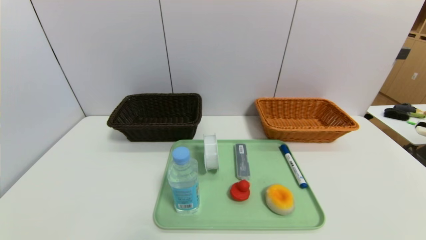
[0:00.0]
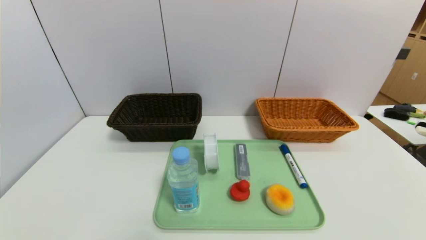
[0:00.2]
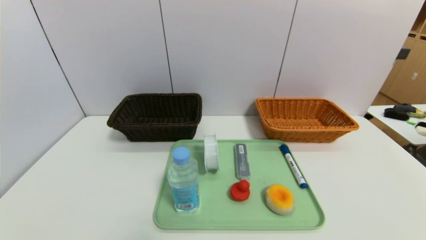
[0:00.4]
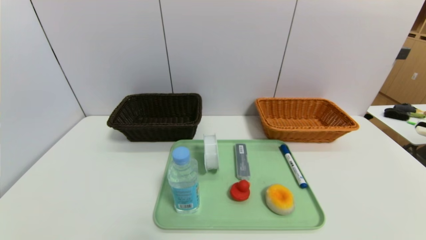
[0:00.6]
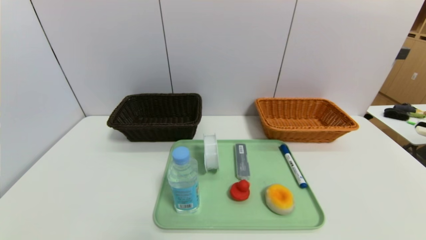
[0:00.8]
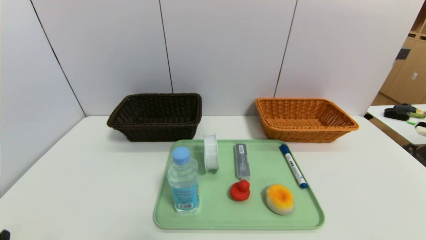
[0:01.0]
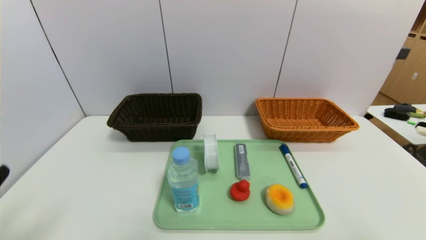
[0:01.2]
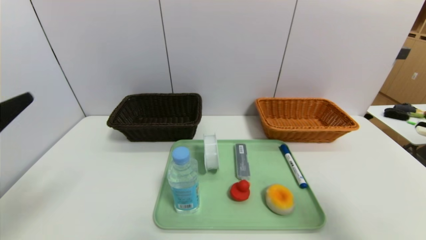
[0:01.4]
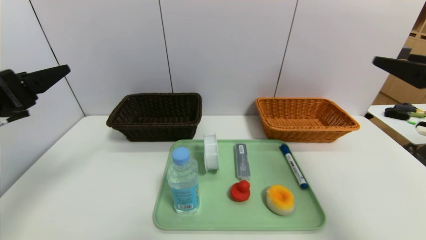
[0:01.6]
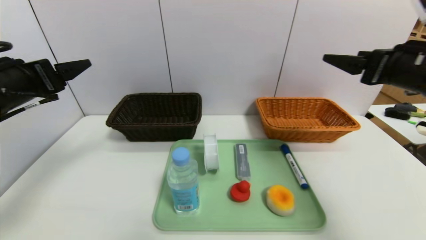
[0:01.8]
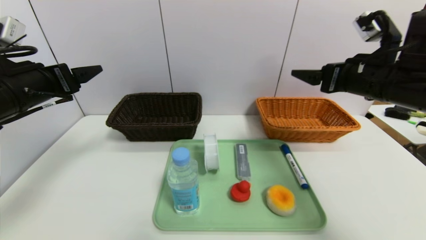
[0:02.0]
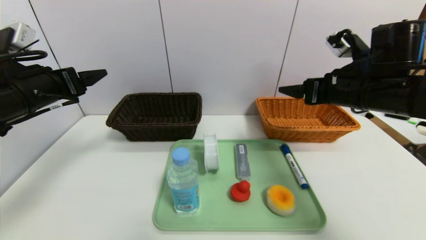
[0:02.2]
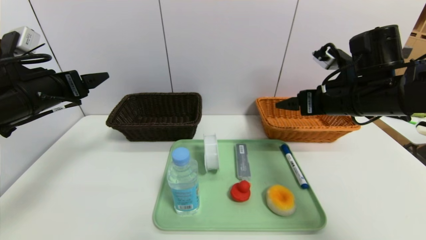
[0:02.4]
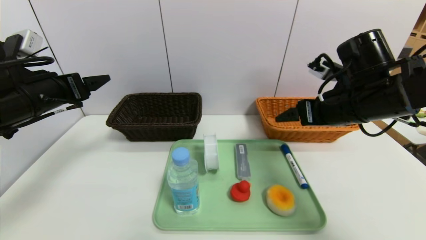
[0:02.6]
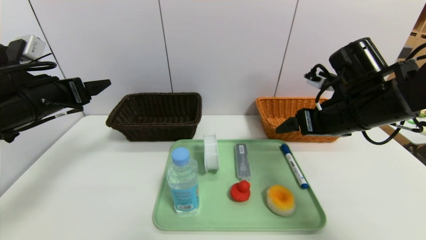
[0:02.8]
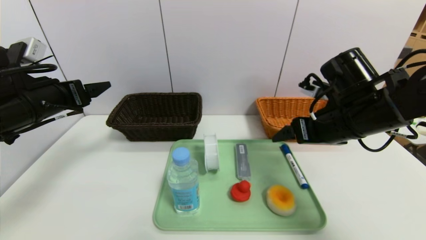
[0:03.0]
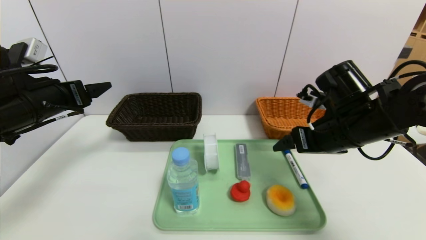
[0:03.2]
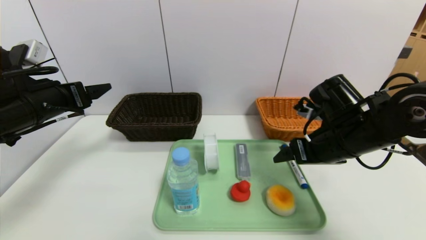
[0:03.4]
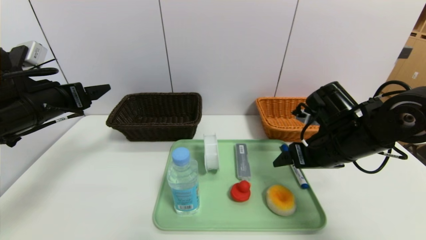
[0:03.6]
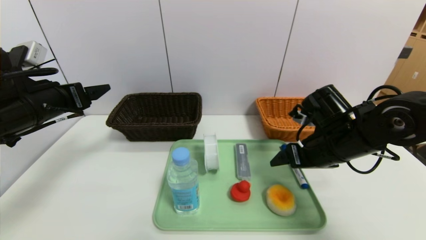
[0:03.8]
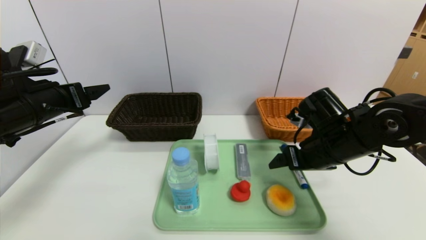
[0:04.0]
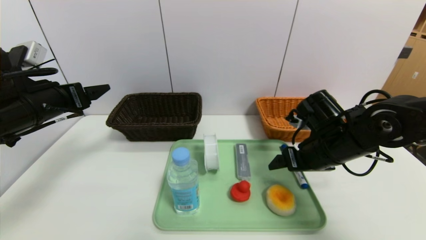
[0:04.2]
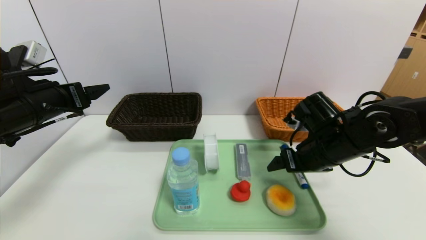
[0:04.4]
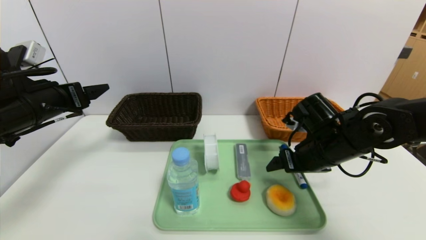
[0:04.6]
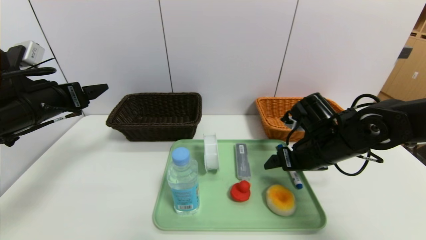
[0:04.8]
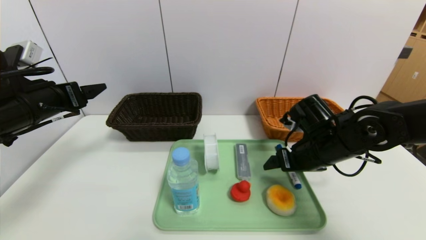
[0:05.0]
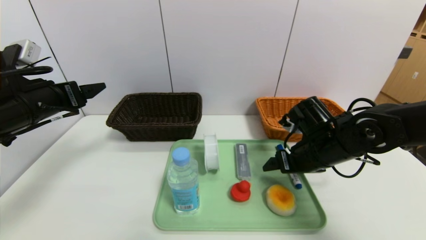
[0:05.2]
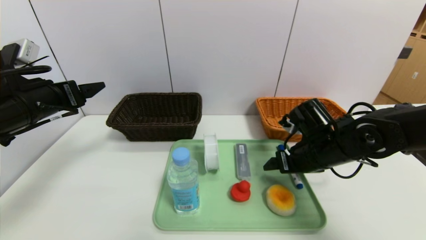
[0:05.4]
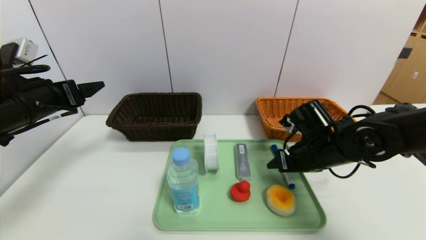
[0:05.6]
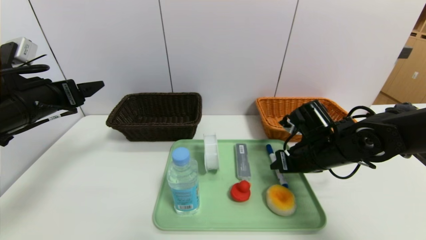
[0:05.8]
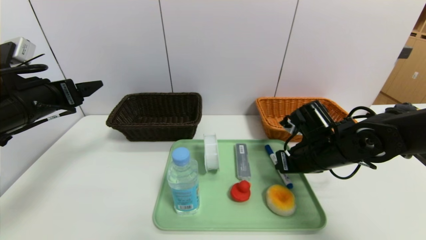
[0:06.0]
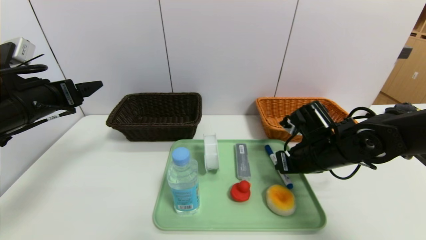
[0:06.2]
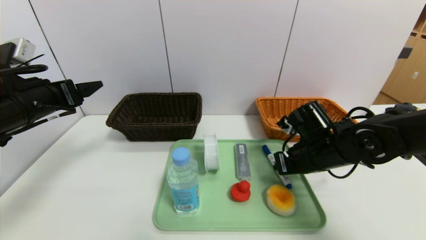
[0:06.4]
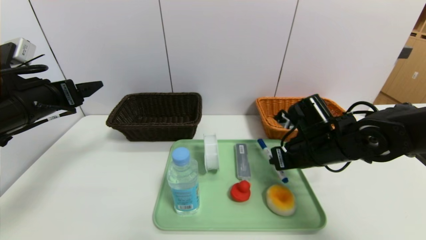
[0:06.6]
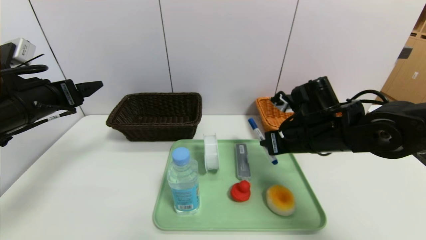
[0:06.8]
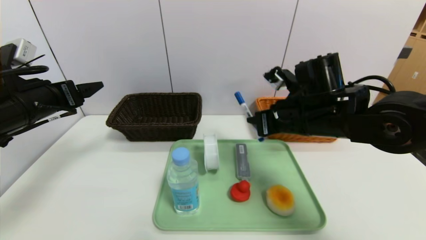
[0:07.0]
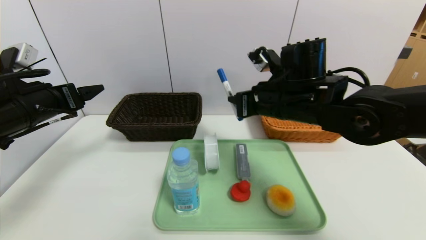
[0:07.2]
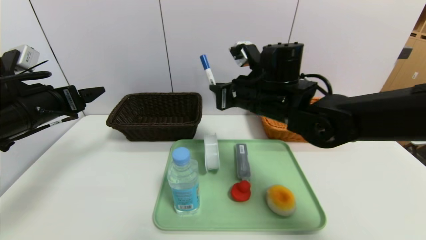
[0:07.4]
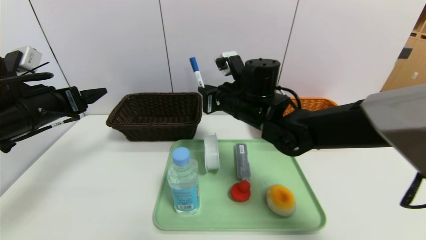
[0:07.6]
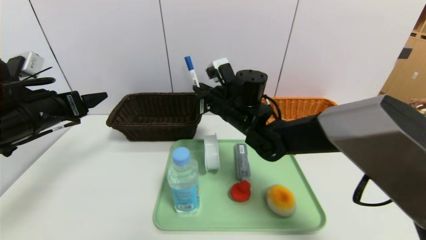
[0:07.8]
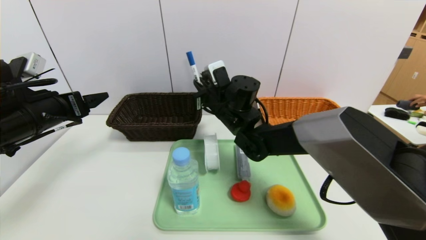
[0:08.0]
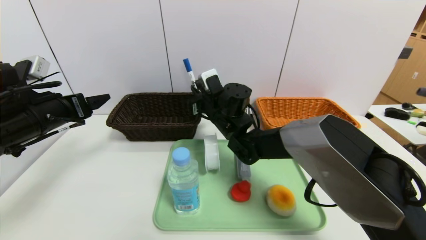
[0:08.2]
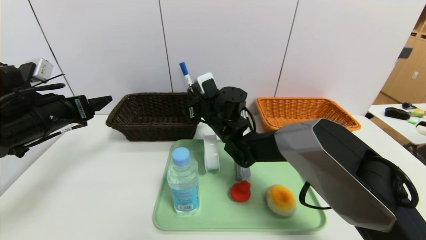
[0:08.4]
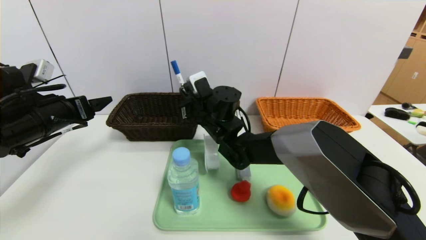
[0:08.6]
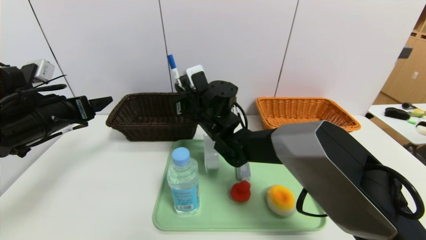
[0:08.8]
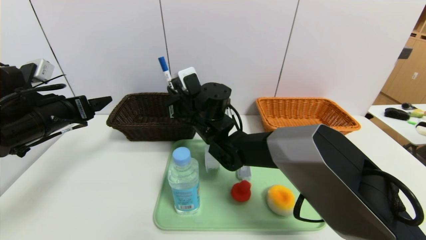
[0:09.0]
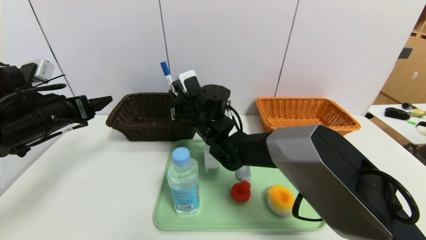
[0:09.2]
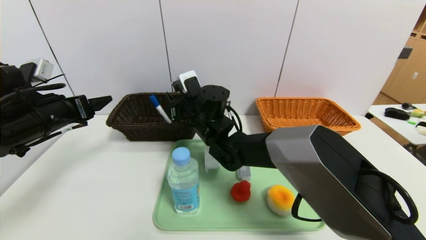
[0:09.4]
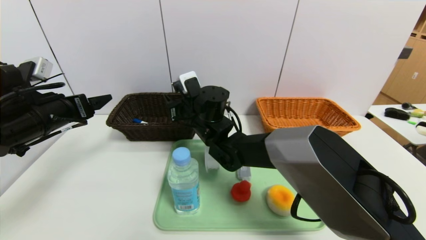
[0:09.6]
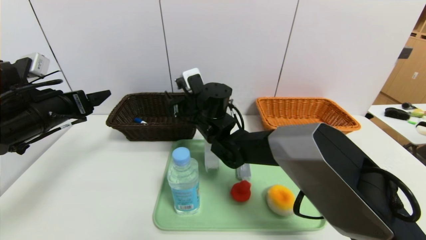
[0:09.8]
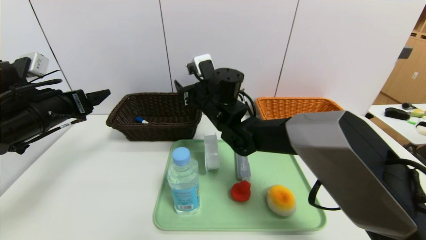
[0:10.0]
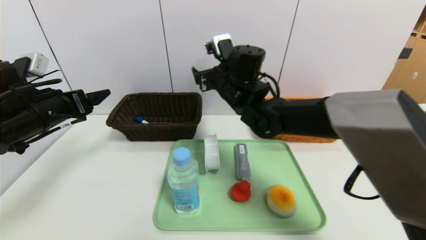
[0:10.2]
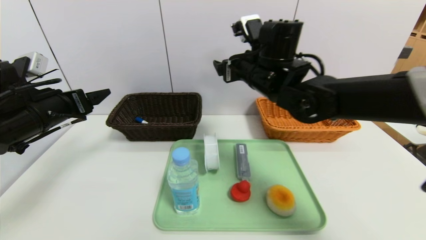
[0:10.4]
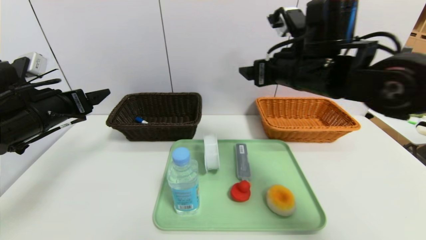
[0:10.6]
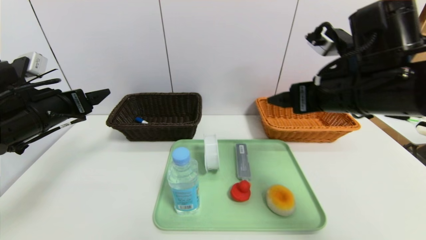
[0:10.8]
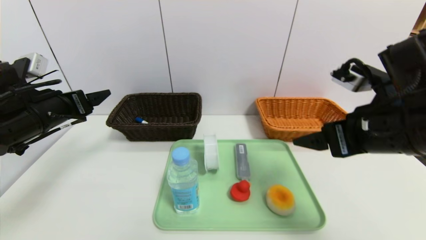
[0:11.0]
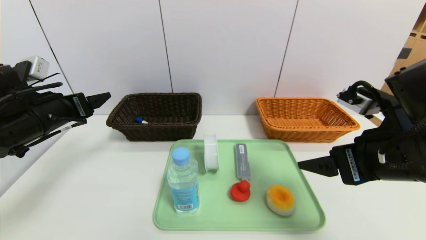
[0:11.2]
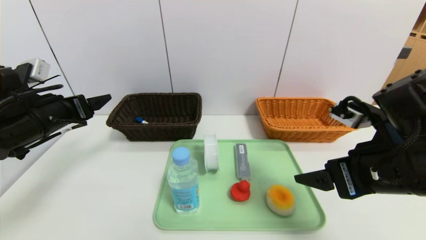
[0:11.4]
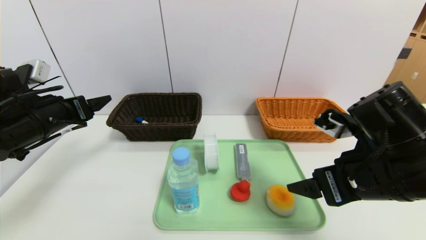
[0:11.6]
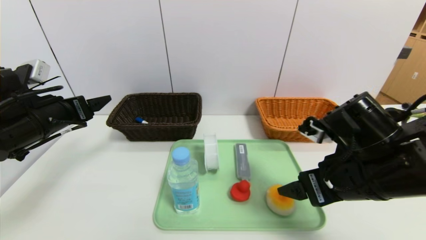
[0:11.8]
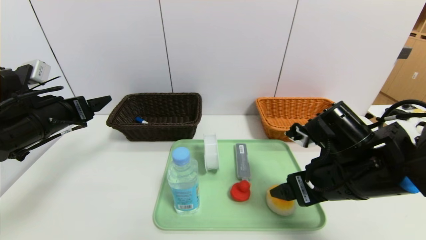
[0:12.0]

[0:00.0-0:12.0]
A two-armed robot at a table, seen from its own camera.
Task of the whole recording: place the food in the right basket with the right gripper, and place the non food items in the left basket with the left gripper.
Step, 0:00.0 to 0:10.0: Grasp the blue marker and put it in the right basket.
0:00.0 to 0:01.6: The two grippers go about 30 cm upward and forward.
0:01.6 to 0:03.0: The left gripper shifts about 10 cm forward. The right gripper heads to the left, forward and downward, covering roughly 15 cm.
0:03.0 to 0:04.4: The right gripper travels downward by roughly 5 cm.
0:04.4 to 0:06.0: The right gripper closes up.
0:06.0 to 0:07.6: The right gripper heads to the left and upward, covering about 15 cm.
0:07.6 to 0:09.0: The right gripper moves to the left, some 10 cm.
0:09.0 to 0:10.4: The right gripper heads to the right and upward, covering roughly 15 cm, and opens its fingers.
0:10.4 to 0:12.0: The right gripper moves backward, to the right and downward, roughly 20 cm.

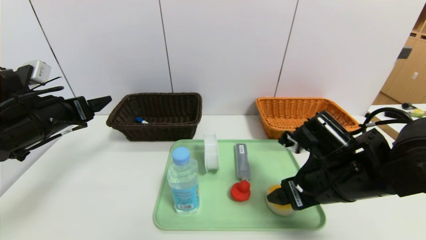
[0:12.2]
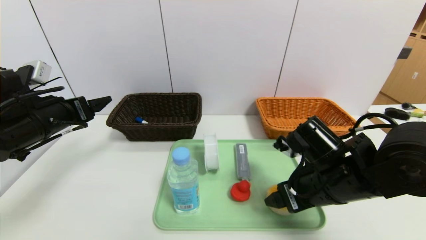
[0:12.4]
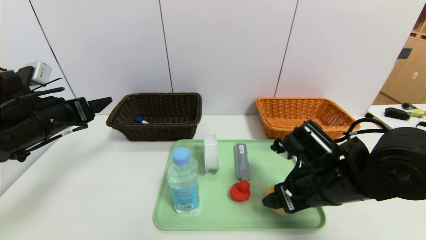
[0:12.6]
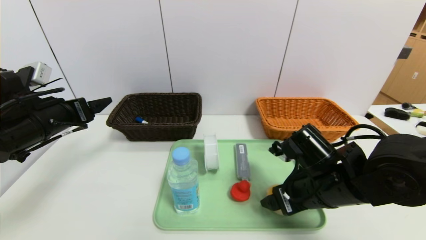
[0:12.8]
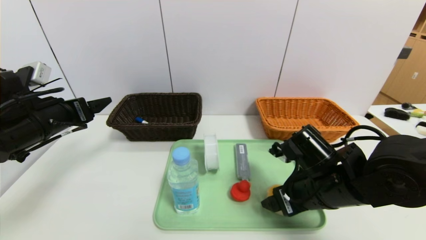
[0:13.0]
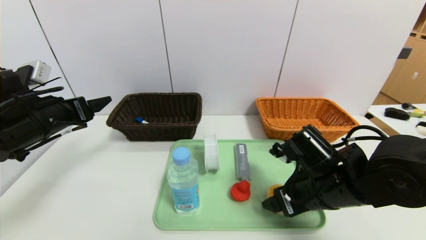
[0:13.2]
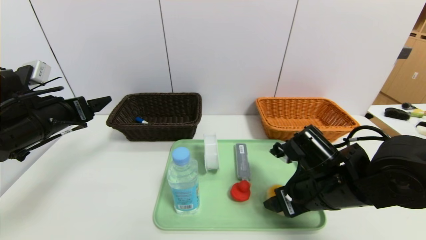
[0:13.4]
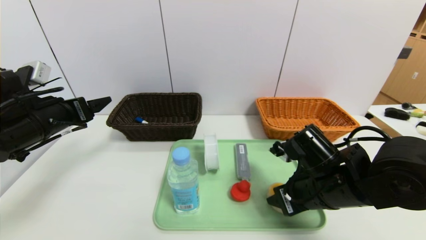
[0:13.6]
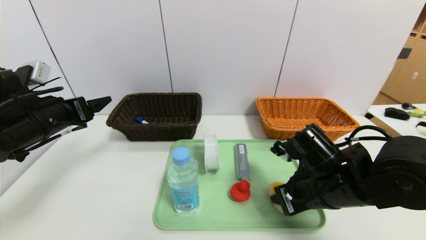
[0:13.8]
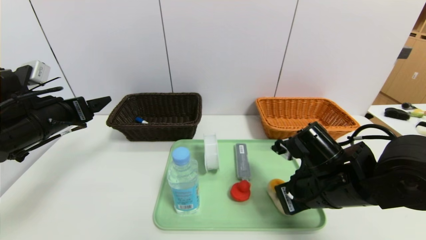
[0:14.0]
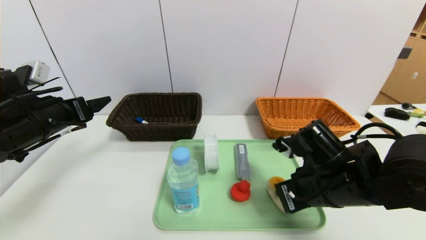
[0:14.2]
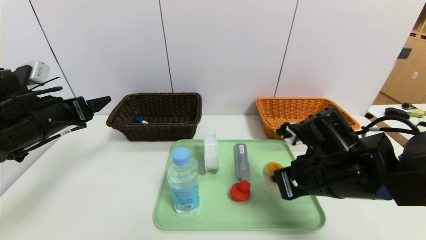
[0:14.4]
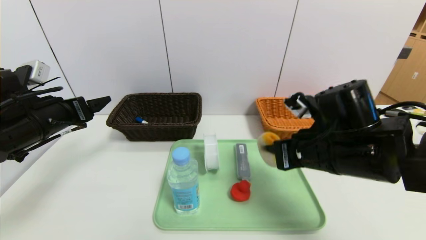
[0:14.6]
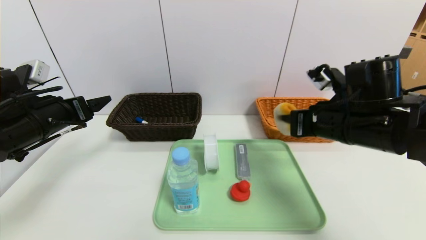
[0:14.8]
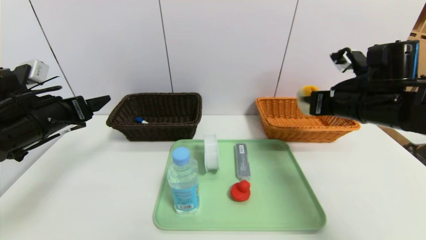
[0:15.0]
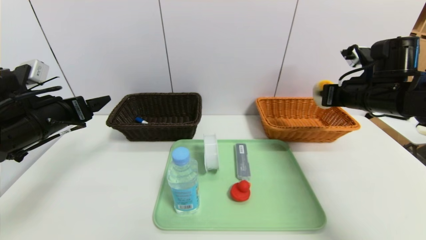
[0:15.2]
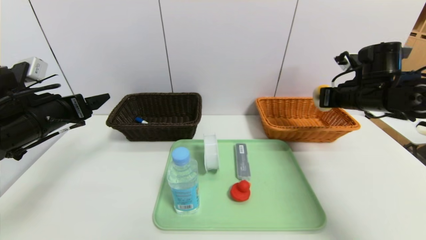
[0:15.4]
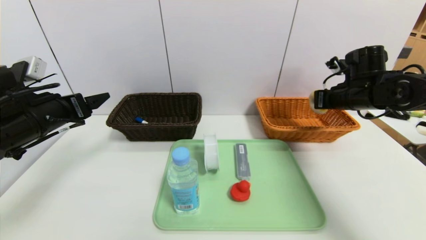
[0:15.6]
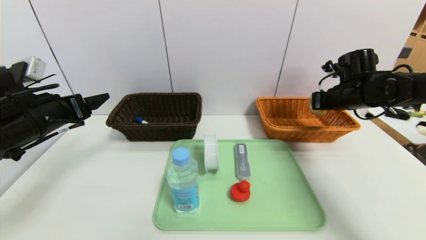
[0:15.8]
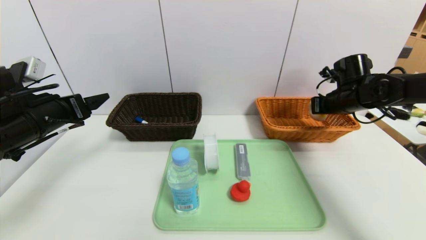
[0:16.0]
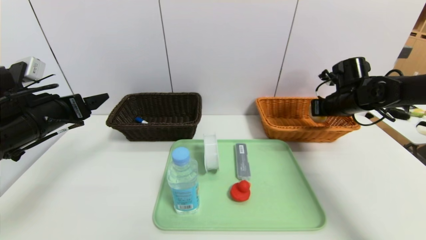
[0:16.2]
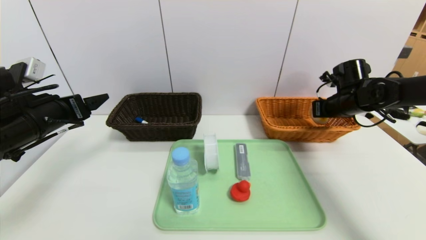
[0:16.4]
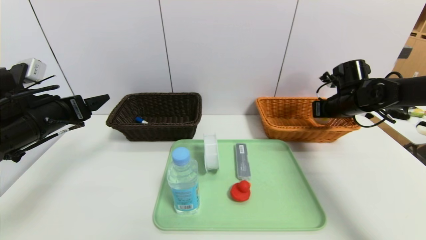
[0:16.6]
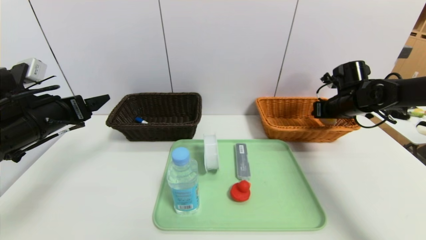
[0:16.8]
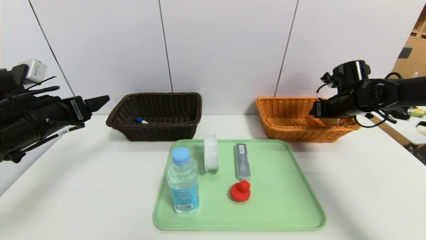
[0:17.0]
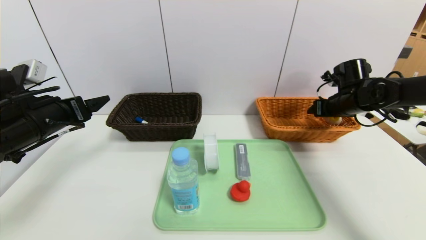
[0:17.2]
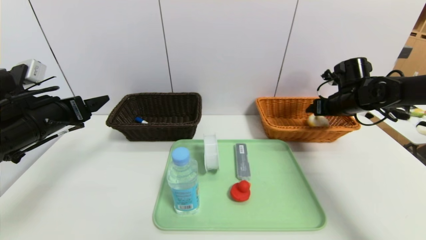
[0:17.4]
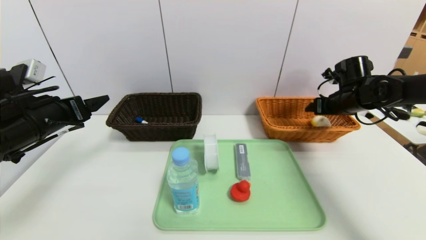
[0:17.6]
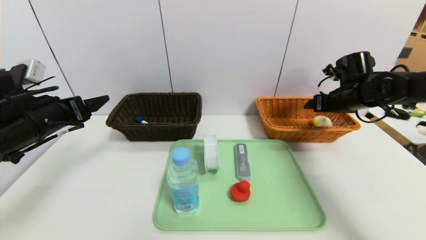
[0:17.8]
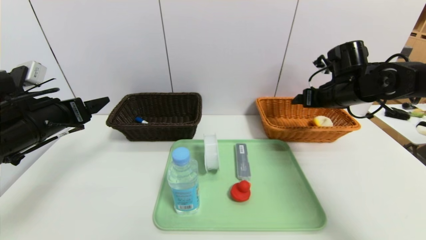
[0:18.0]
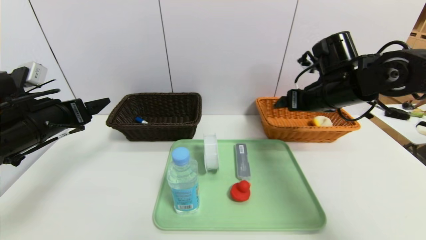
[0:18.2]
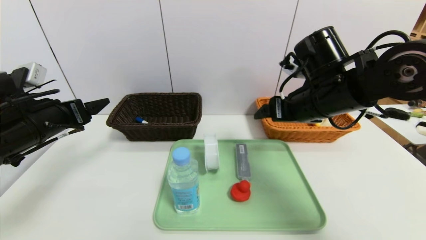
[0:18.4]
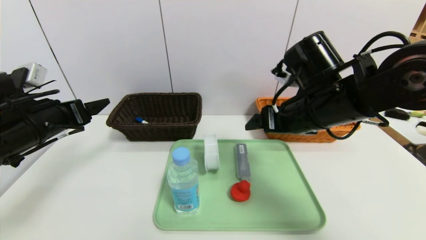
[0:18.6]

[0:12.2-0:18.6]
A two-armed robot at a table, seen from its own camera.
Task of the whole recording: place the food in the right basket with the right gripper, and place the non food items in the left basket with the left gripper.
Step, 0:12.2 to 0:17.8: Grasp the round bread and put it in the right basket.
0:12.2 to 0:13.8: The right gripper closes up.
0:13.8 to 0:15.4: The right gripper goes approximately 20 cm forward, to the right and upward, and closes up.
0:15.4 to 0:17.0: The right gripper moves forward, some 5 cm, and opens its fingers.
0:17.0 to 0:18.6: The right gripper moves to the left, backward and upward, about 25 cm.
